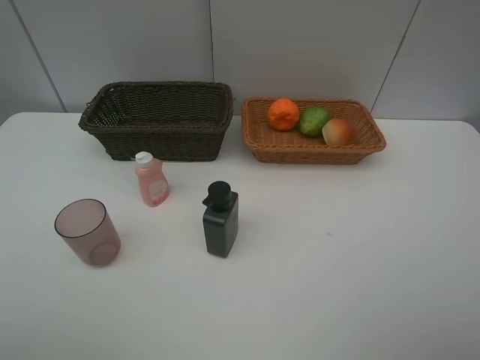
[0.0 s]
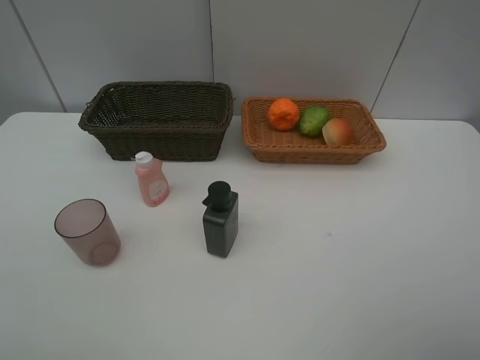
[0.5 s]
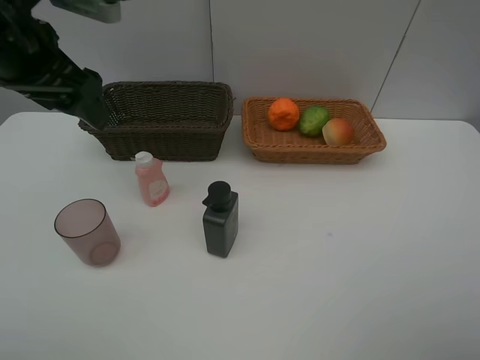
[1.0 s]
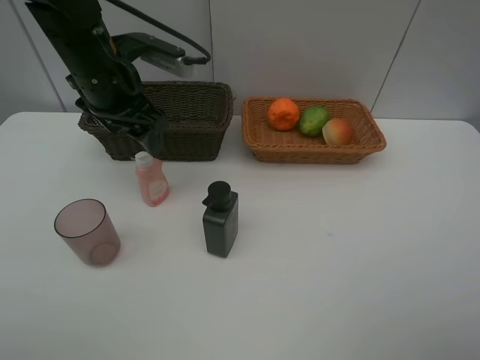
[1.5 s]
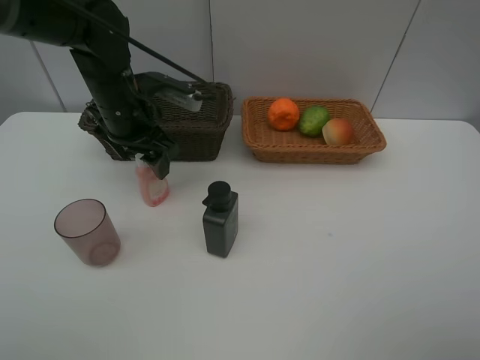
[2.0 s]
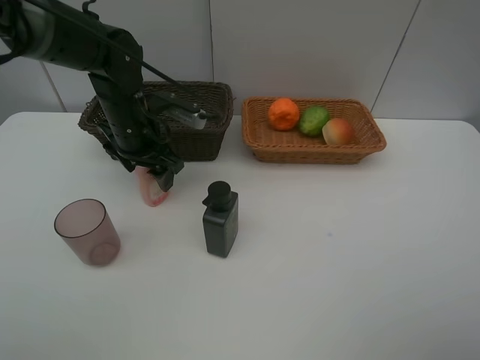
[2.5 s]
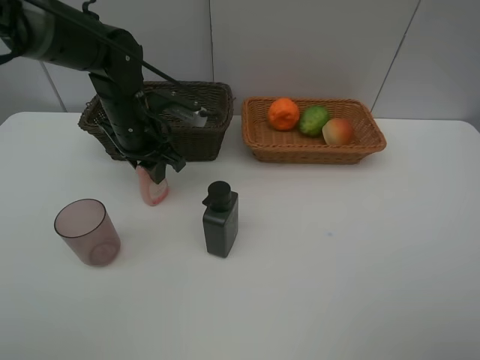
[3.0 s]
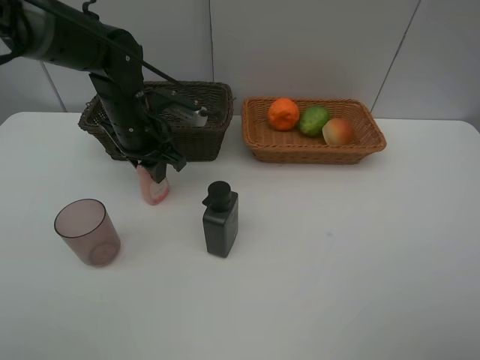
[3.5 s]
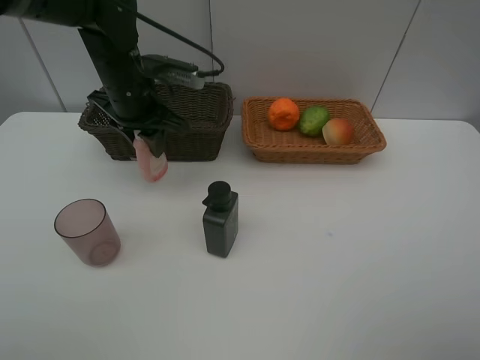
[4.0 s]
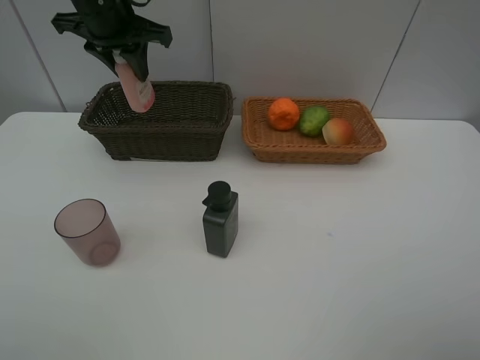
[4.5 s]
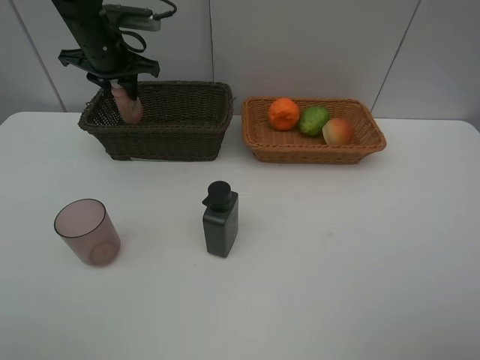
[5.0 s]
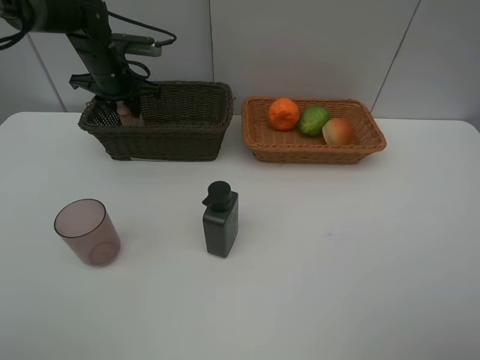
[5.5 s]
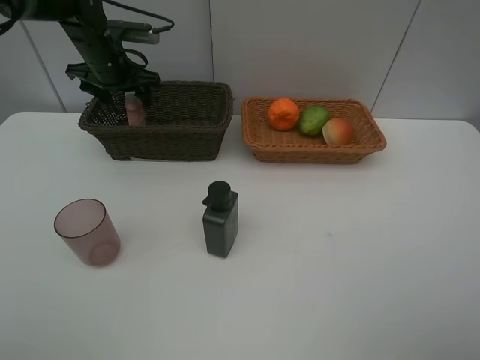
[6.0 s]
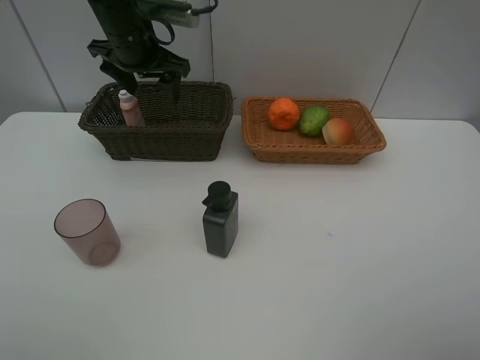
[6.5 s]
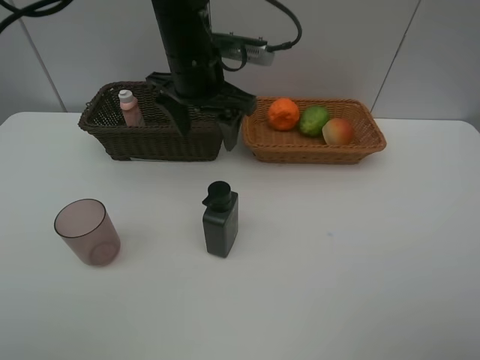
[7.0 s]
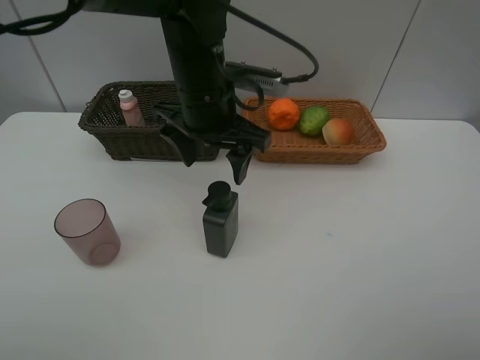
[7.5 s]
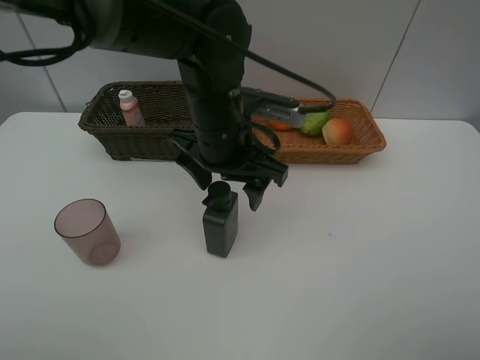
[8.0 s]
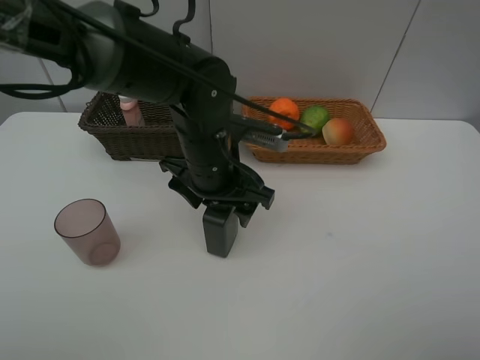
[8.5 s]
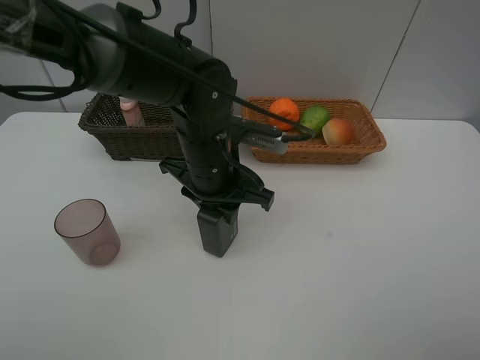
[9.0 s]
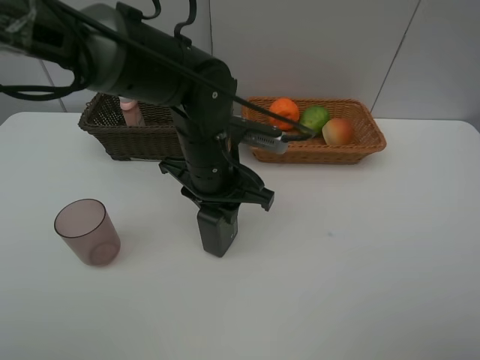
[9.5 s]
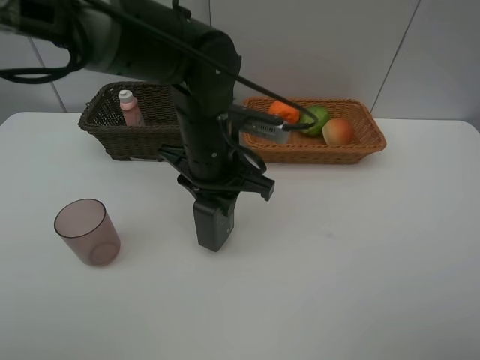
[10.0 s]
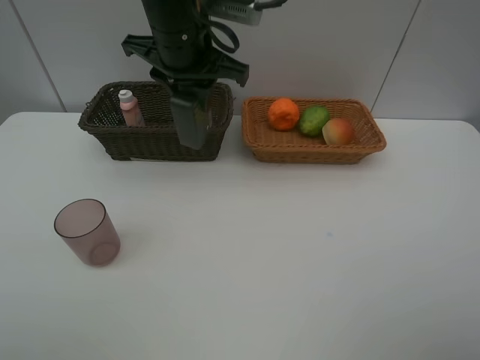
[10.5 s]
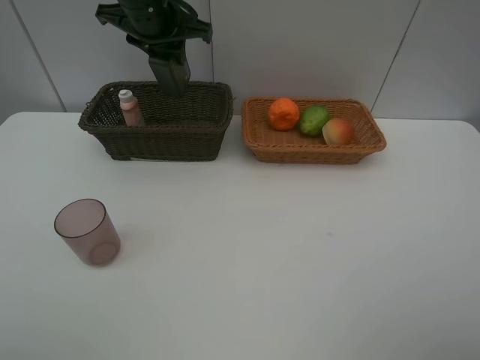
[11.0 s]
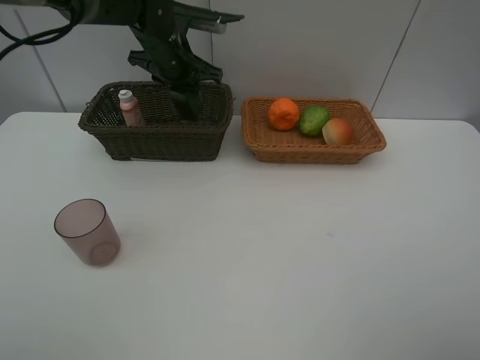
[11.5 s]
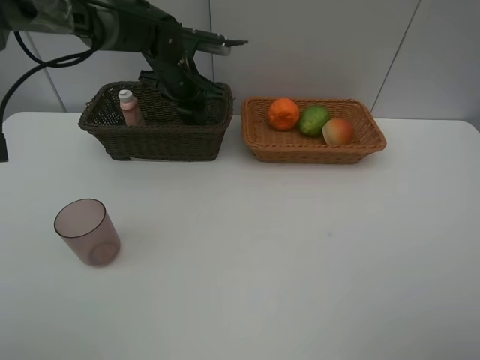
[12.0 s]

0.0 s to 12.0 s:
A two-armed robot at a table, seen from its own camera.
Task of the whole recording: place multiple objects separately in different baskets.
0.0 to 2.0 s: The left gripper moves forward and to the right, approximately 40 cm.
2.0 to 4.0 s: The left gripper closes its fingers.
4.0 to 6.0 s: The left gripper goes about 15 cm forward and to the left, reaches about 10 cm upward, then returns, and opens its fingers.
6.0 to 8.0 s: The left gripper shifts about 30 cm to the right and backward.
8.0 to 10.0 s: The left gripper closes.
10.0 to 12.0 s: The left gripper goes some 20 cm forward and to the left.

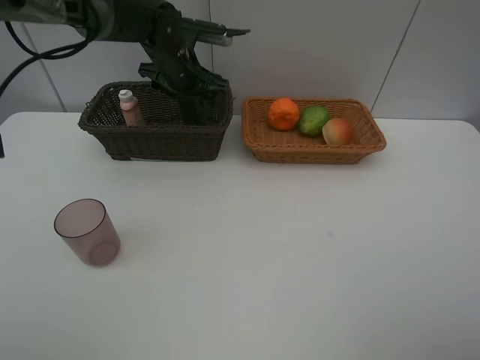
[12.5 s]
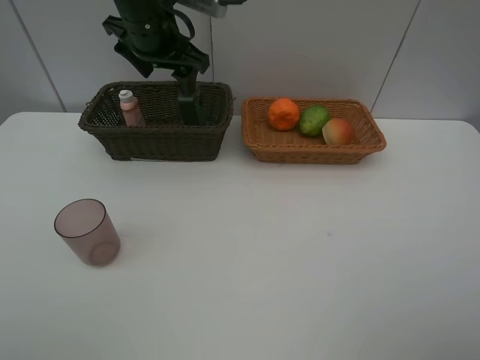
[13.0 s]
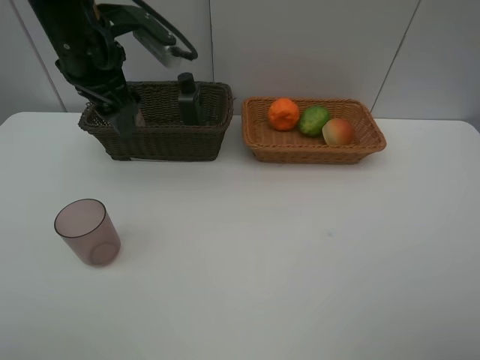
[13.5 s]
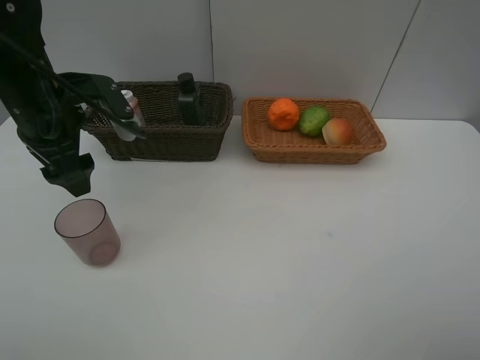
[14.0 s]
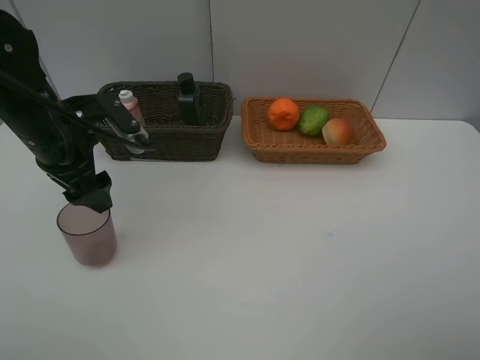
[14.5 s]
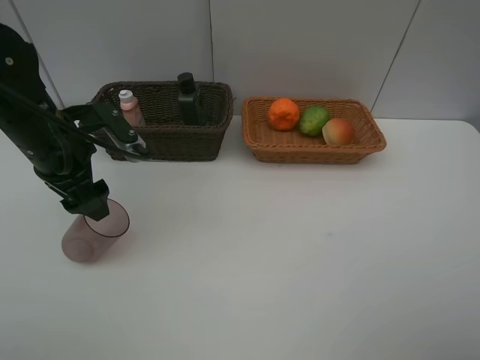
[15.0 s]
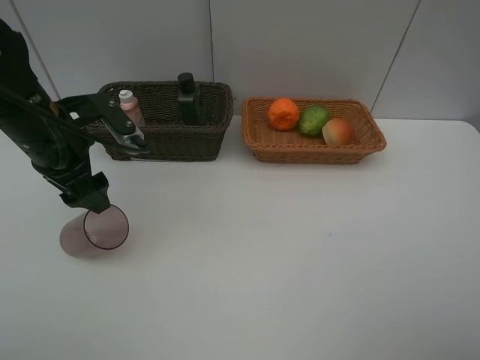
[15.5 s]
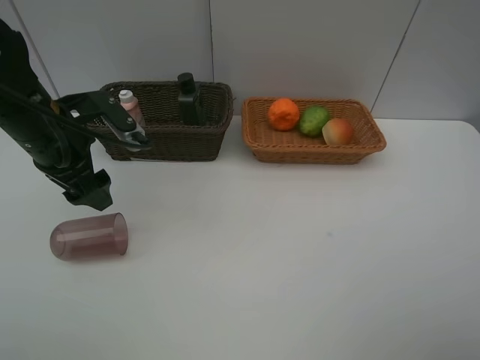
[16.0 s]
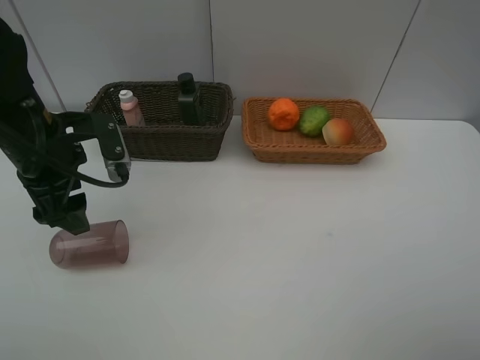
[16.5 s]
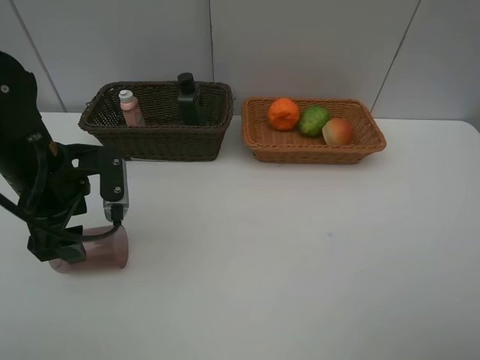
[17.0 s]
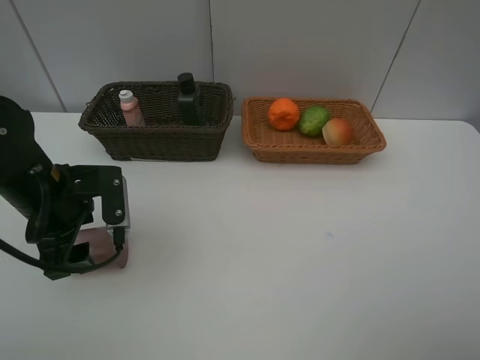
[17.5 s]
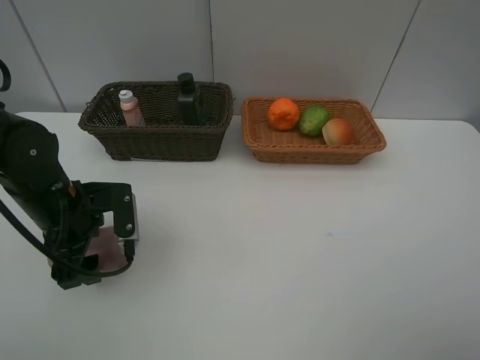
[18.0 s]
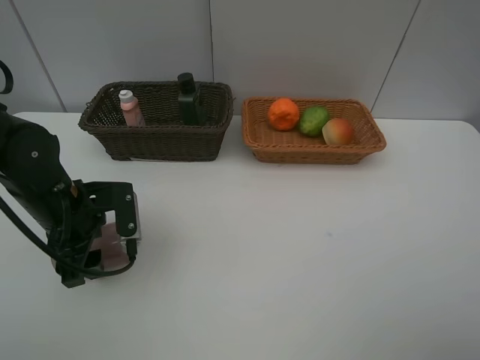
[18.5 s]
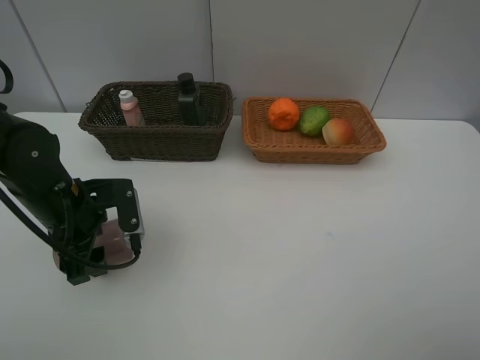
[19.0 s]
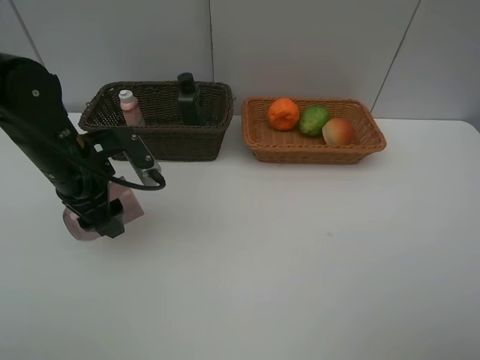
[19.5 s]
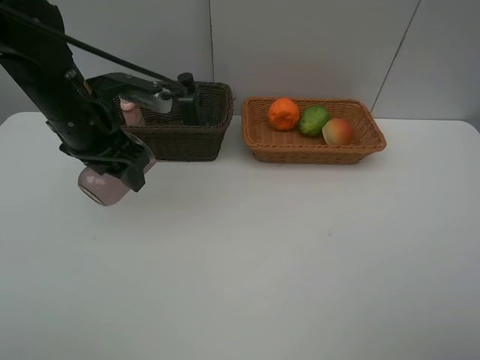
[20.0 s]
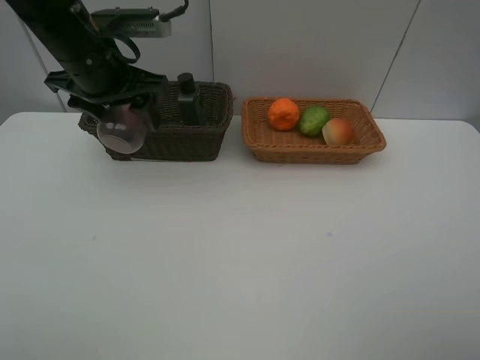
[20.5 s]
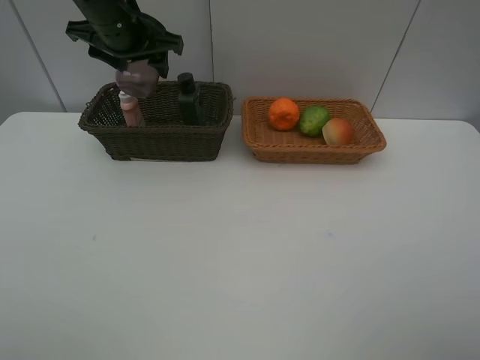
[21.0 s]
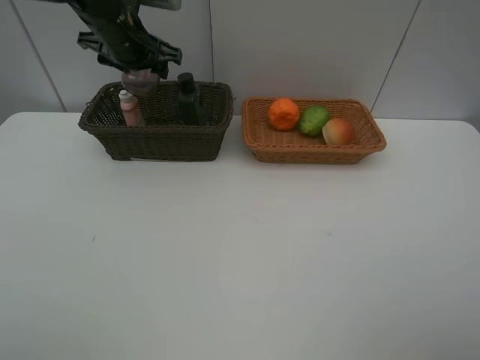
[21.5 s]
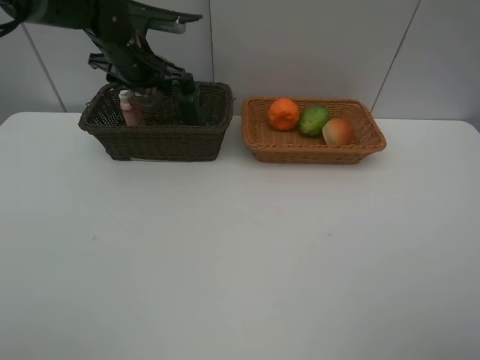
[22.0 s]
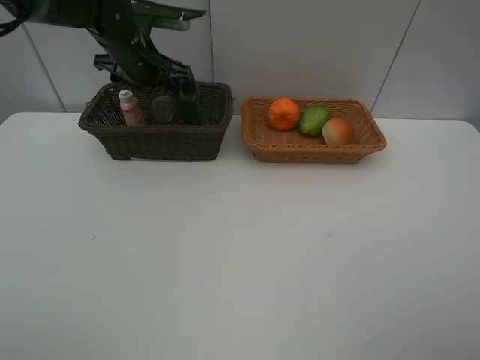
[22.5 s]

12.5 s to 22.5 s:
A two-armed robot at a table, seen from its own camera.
Task of the whole recording: place multiple objects separately in different baskets.
12.5 to 14.5 s: The left gripper heads backward and to the left, covering approximately 20 cm.
14.5 to 16.5 s: The grippers move only a little.
16.5 to 18.5 s: The left gripper shifts about 10 cm downward.
18.5 to 20.5 s: The left gripper shifts about 20 cm upward and forward.
20.5 to 22.5 s: The left gripper heads forward and downward, covering about 10 cm.

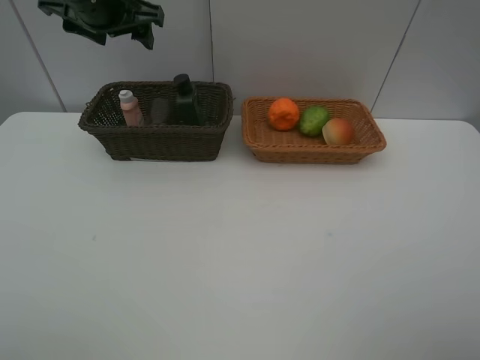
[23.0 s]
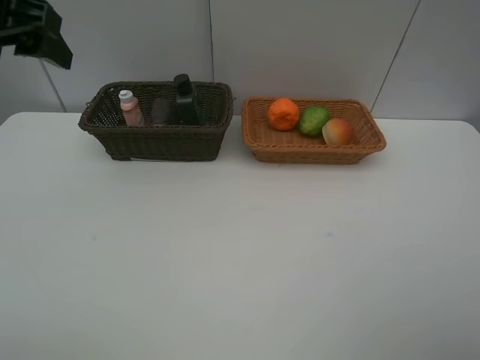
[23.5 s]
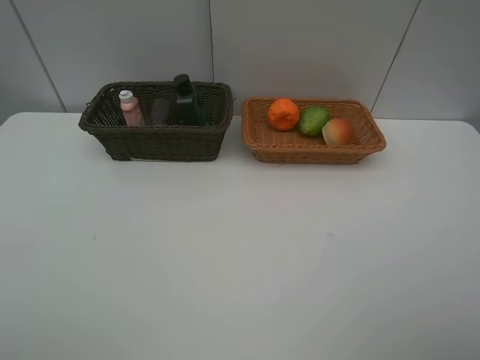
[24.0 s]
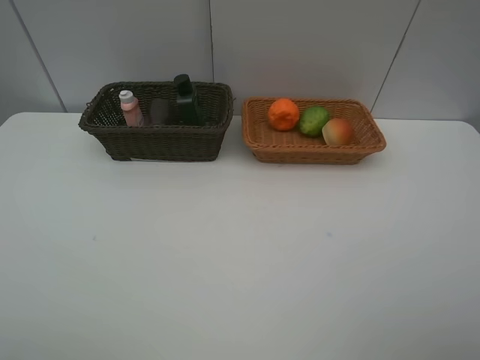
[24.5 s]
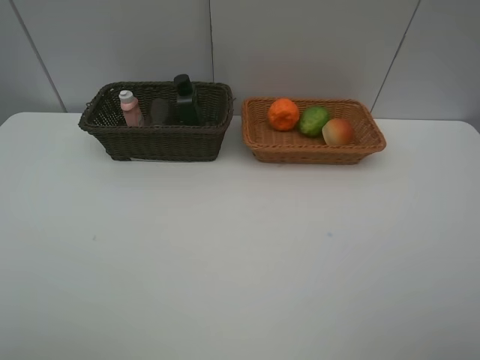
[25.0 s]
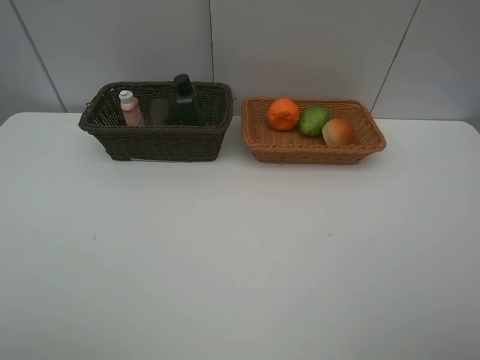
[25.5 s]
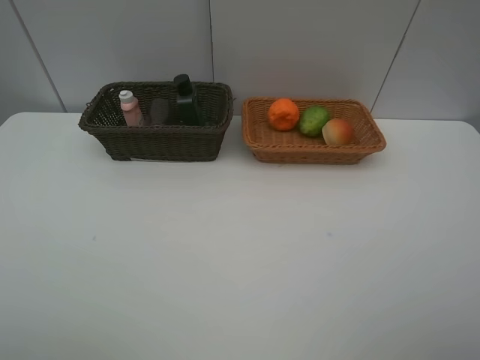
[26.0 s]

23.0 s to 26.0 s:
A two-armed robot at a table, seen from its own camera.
Task of the whole recording: place multiple objects separately in different baskets.
23.0 to 24.5 s: The left gripper shifts about 50 cm backward.

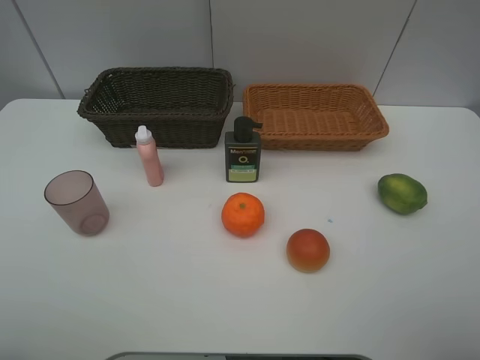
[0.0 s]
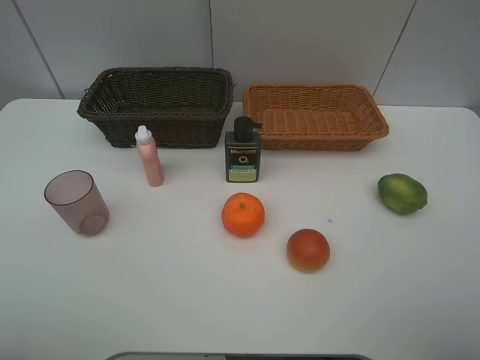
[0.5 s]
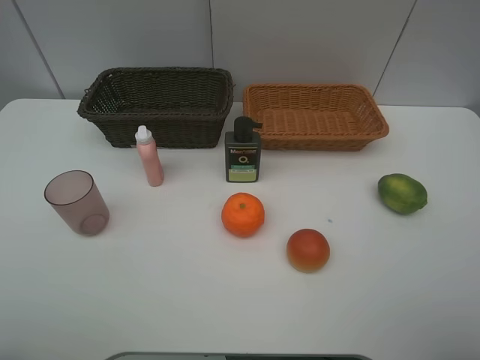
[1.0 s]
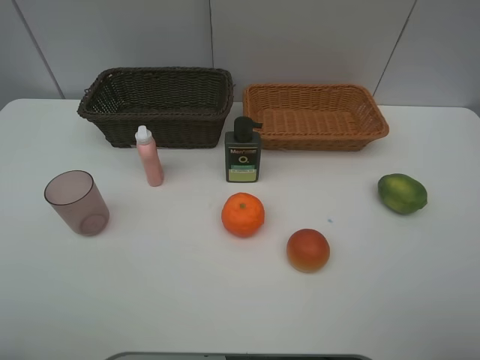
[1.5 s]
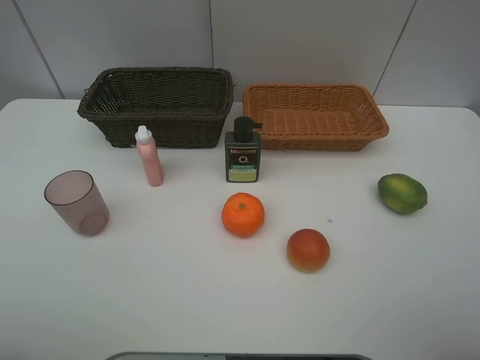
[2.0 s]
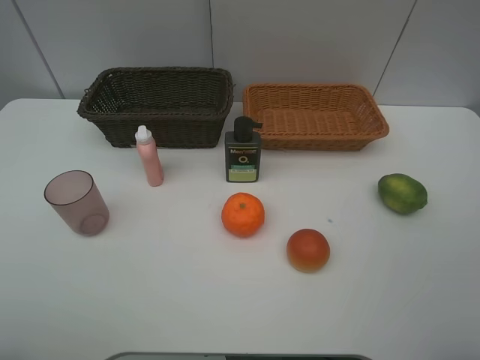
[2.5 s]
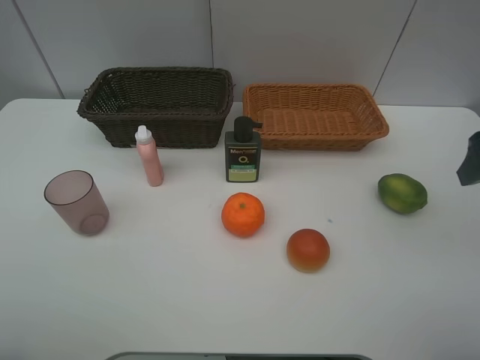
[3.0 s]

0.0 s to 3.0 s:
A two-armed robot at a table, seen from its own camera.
Task of the whole recording: place multiple objects separately in different baskets.
0.0 to 1.5 s: Both grippers stay about where they are.
